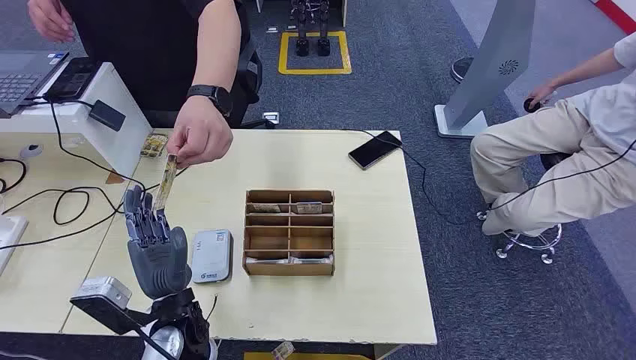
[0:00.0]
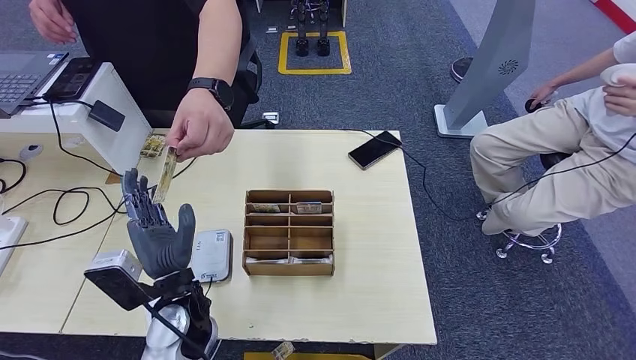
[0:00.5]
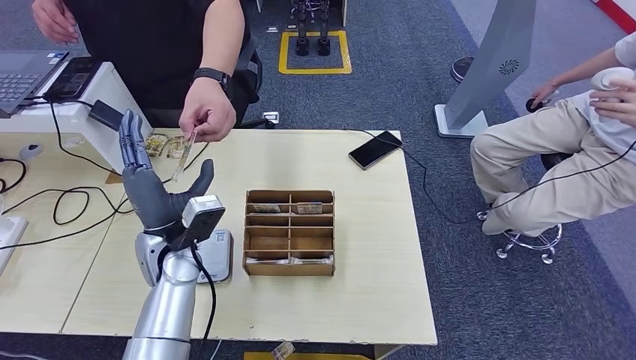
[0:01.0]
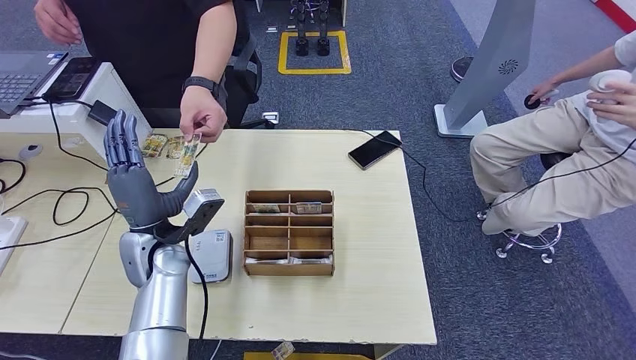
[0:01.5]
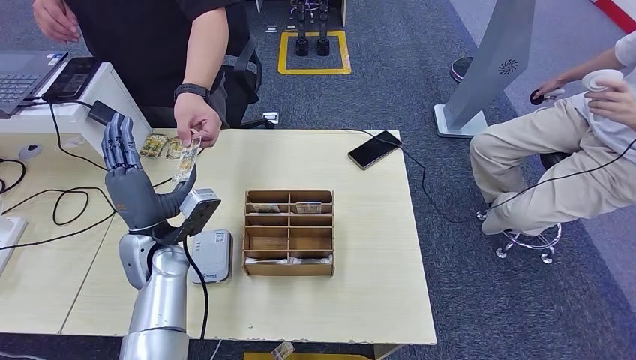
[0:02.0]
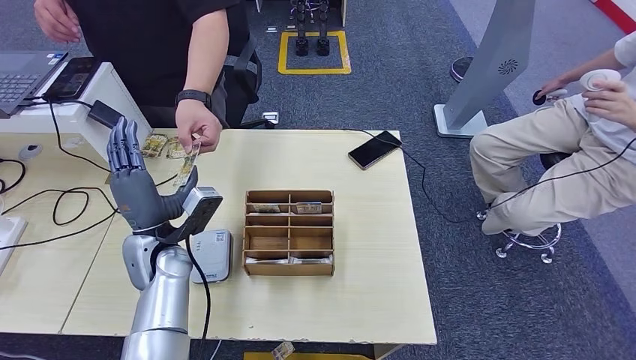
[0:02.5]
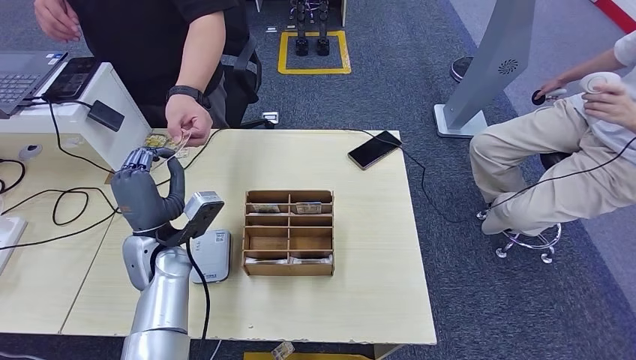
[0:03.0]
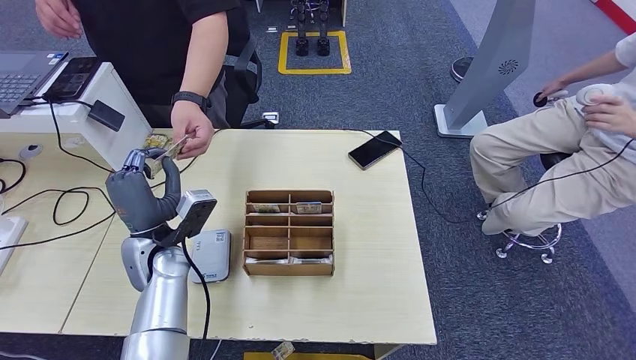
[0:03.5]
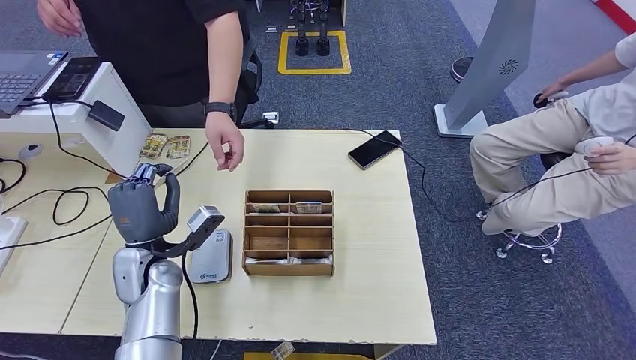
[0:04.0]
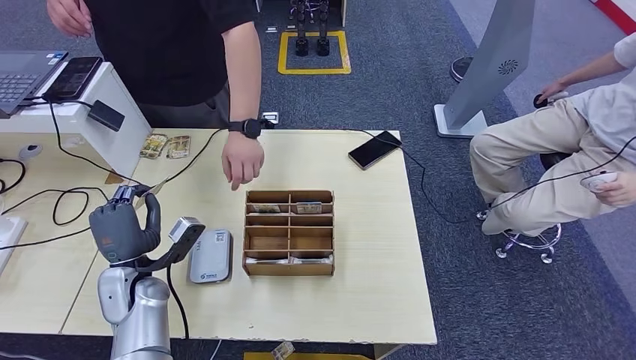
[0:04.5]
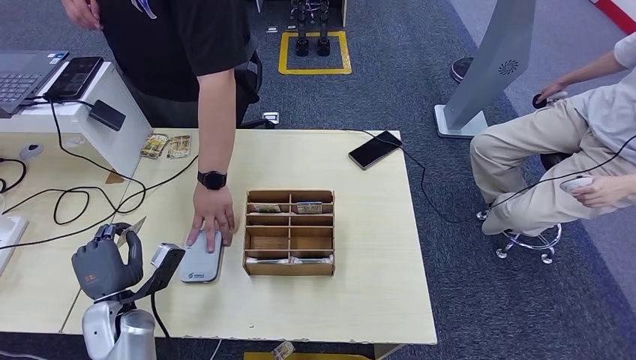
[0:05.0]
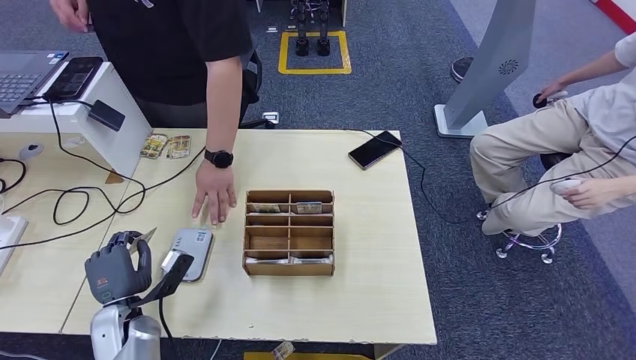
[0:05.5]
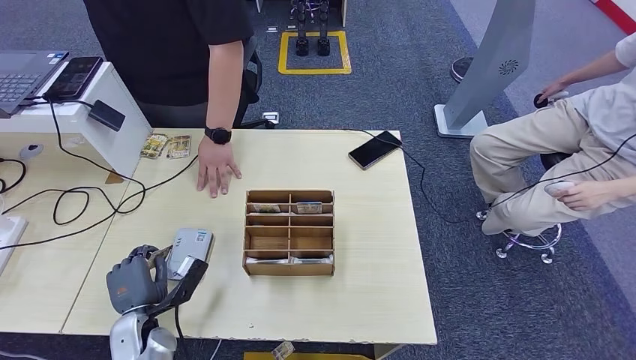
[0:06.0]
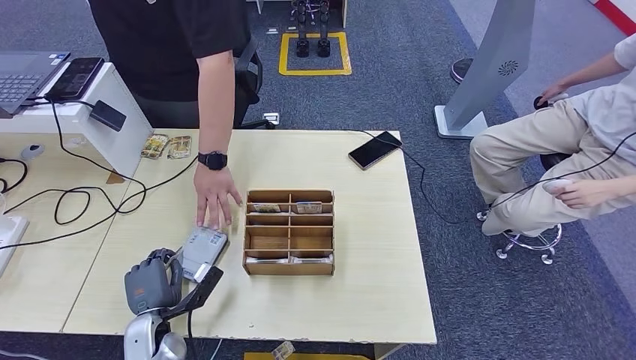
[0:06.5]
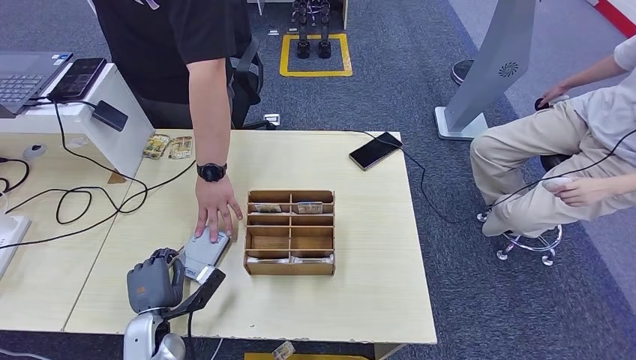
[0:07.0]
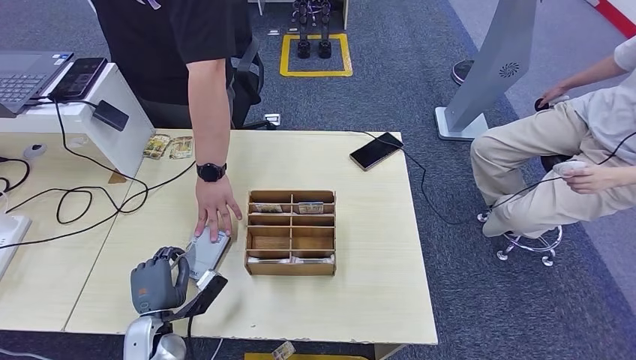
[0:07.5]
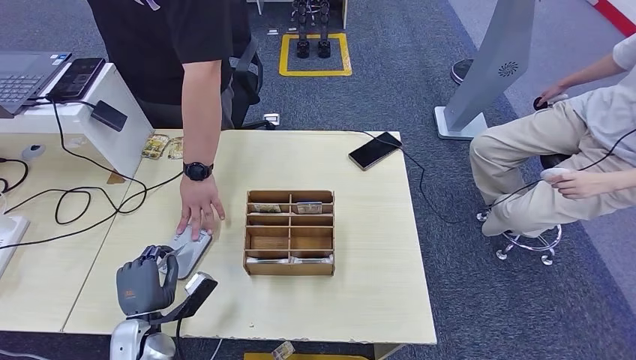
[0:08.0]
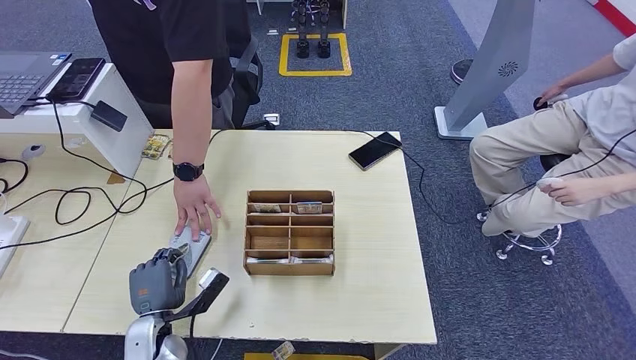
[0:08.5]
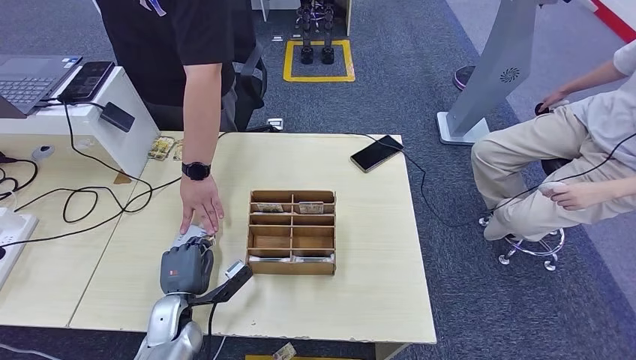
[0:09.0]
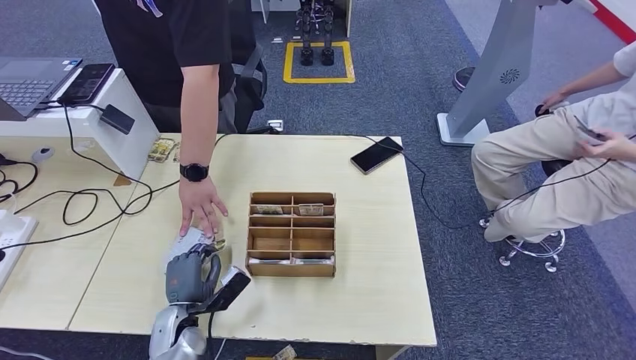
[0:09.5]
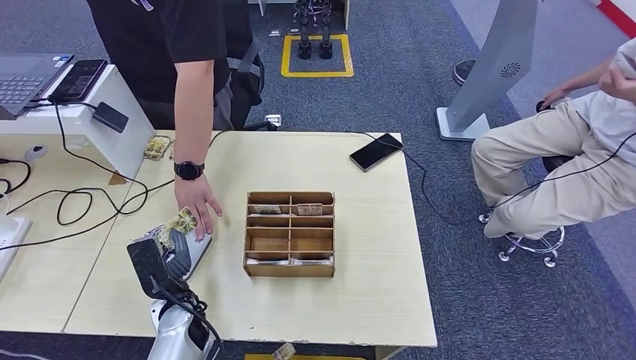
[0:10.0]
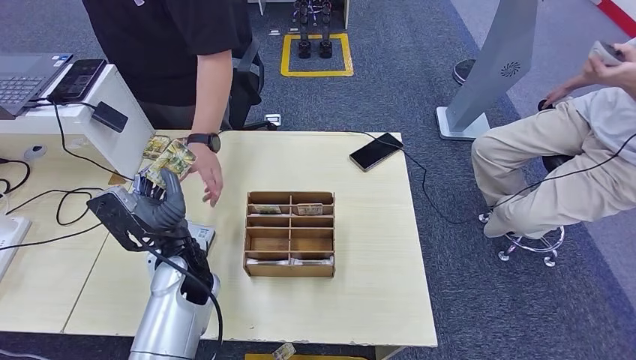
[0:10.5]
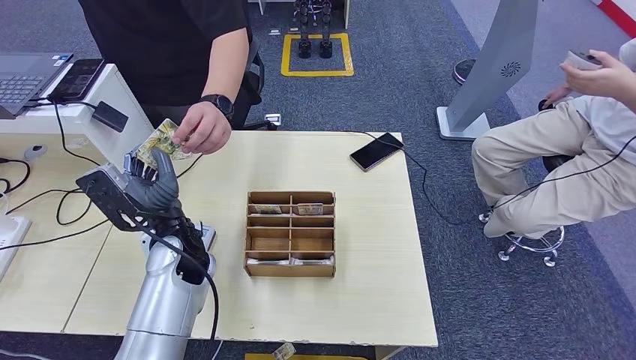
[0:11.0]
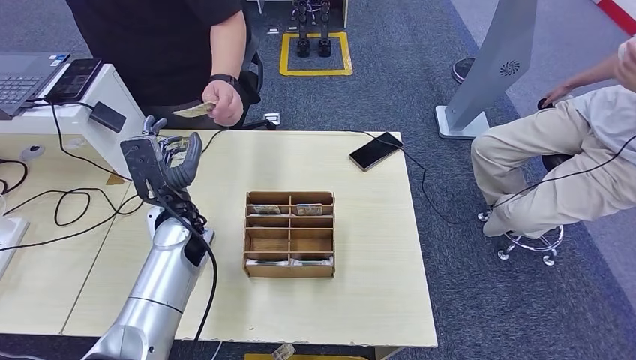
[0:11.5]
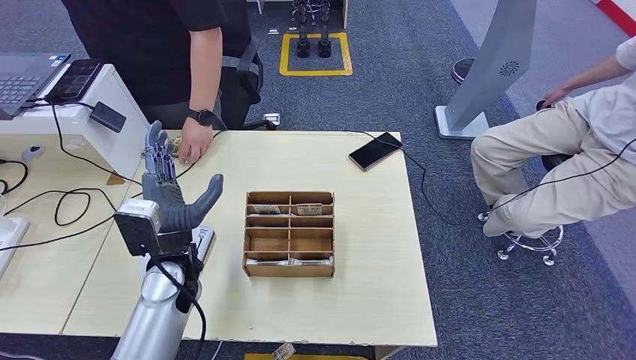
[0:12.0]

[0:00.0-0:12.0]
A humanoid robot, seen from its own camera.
Step, 0:00.0 to 0:04.0: Take the ID card from the person's hand.
Step, 0:04.5 to 0:08.0: Place the ID card on the card reader.
Step, 0:08.5 to 0:11.5: Hand the ID card to the person.
0:02.0 to 0:04.0: The hands stay close to where they were, moving slightly.
0:04.0 to 0:06.0: The left hand shifts approximately 15 cm downward and backward.
0:06.0 to 0:08.0: The hands move only a little.
0:08.0 to 0:10.0: The left hand travels to the right by about 10 cm.
0:10.0 to 0:12.0: The left hand heads upward, covering about 10 cm.

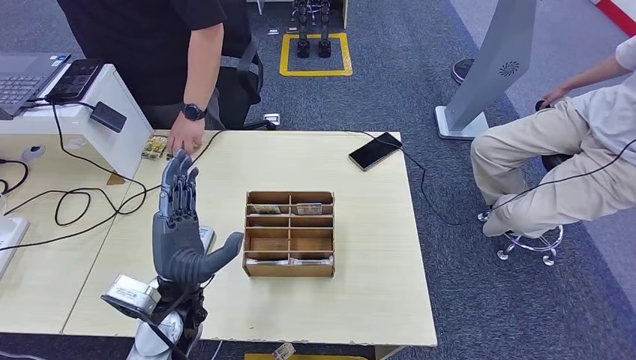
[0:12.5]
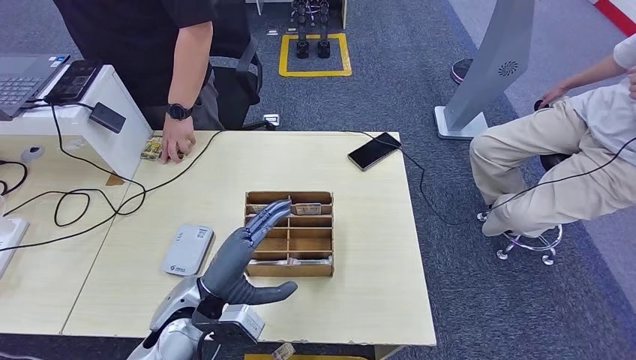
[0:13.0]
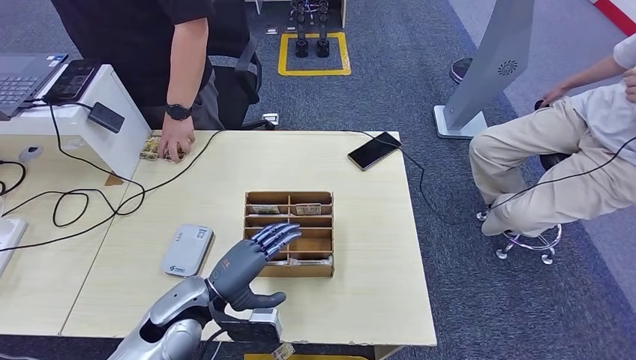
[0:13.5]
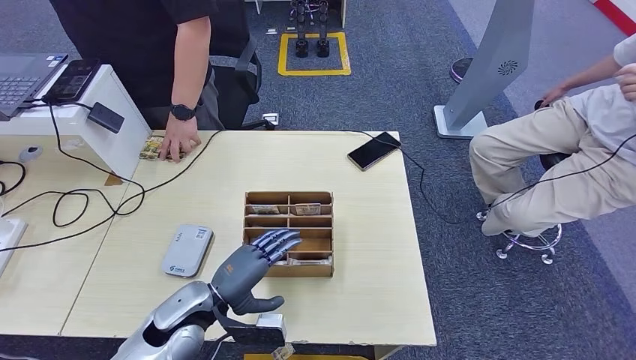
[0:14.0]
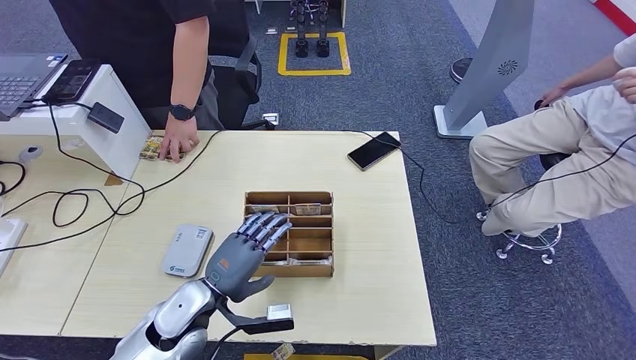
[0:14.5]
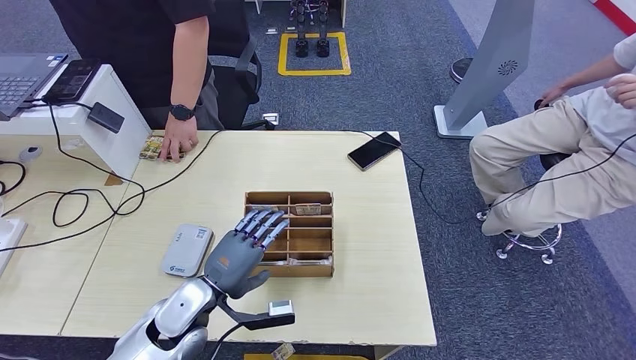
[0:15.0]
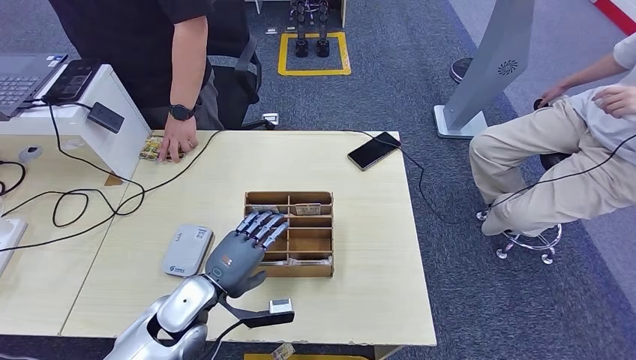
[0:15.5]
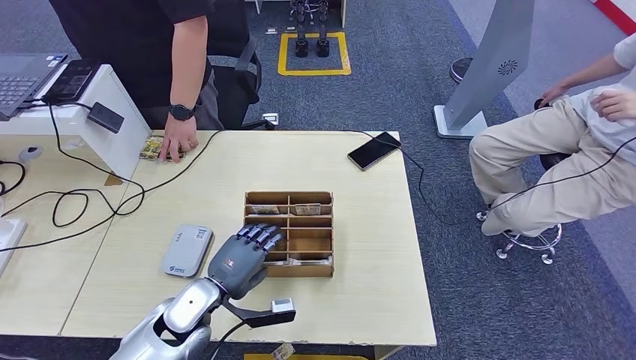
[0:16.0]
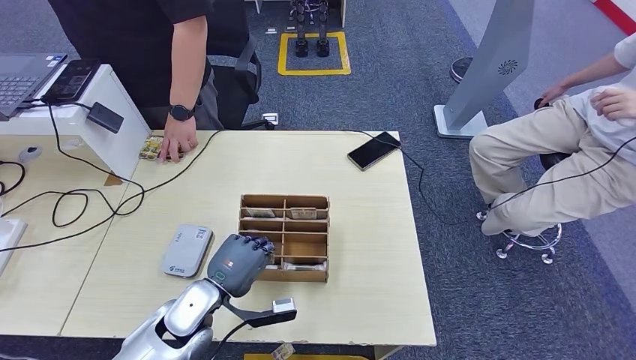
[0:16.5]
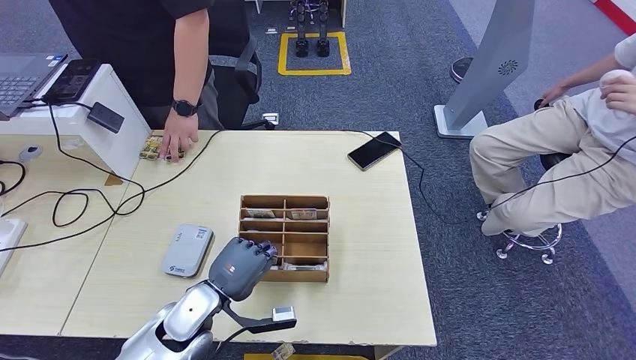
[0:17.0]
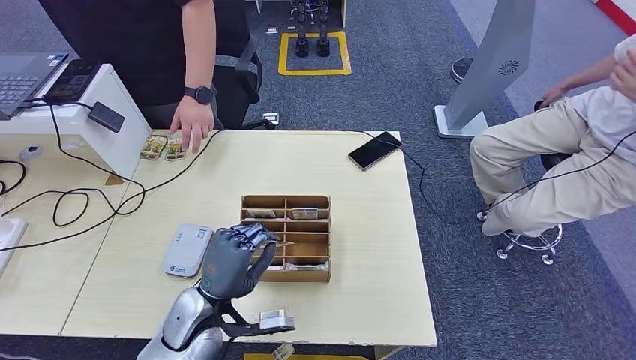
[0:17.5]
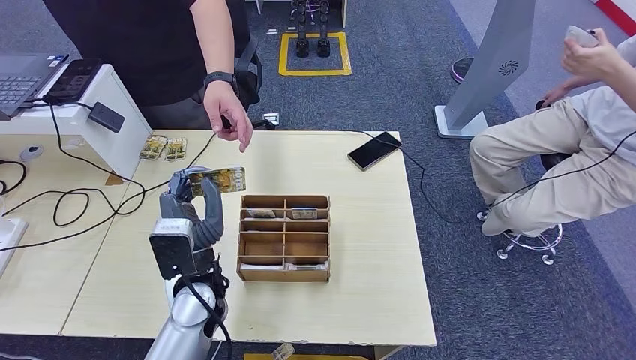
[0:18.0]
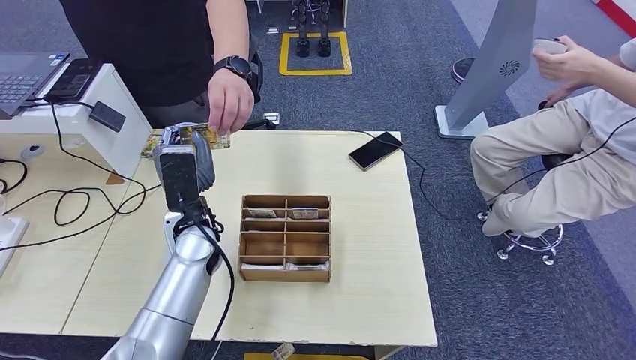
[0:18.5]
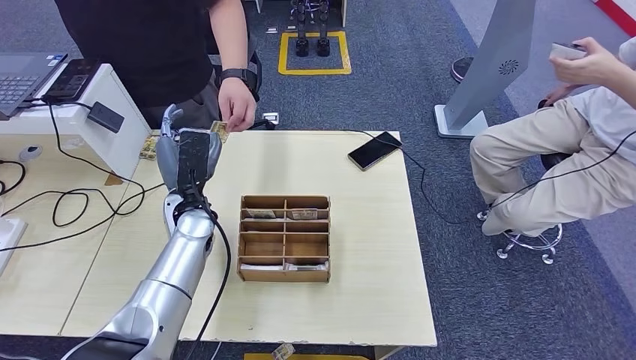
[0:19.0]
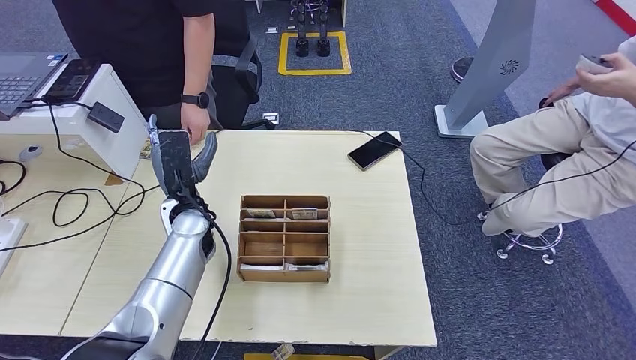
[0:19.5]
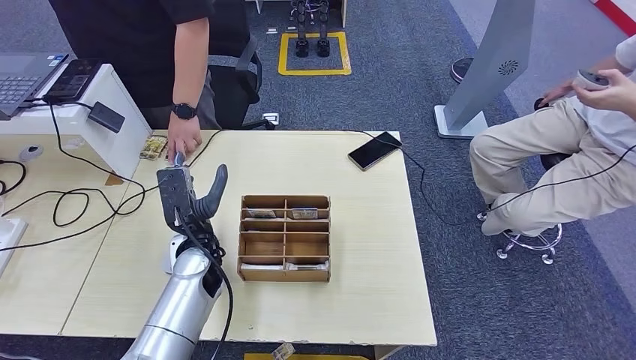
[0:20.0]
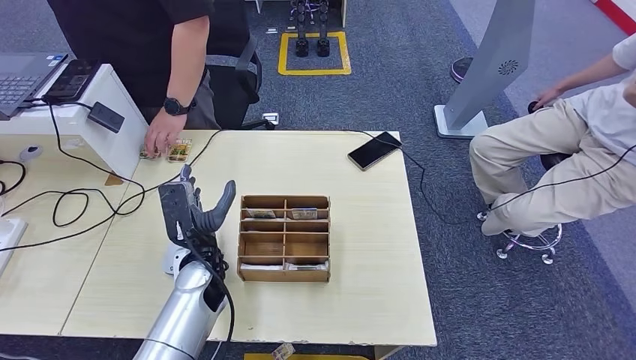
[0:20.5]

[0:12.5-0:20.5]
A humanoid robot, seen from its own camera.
Step, 0:12.5 to 0:18.0: Pick up the room key from the key card box.
Step, 0:18.5 to 0:20.5: Hand the room key to the person.
0:12.5 to 0:14.5: The left hand is displaced downward by about 5 cm.
0:14.5 to 0:16.5: The hands move only a little.
0:16.5 to 0:18.5: The left hand is displaced upward and forward by about 15 cm.
0:18.5 to 0:20.5: The left hand shifts some 5 cm downward.
